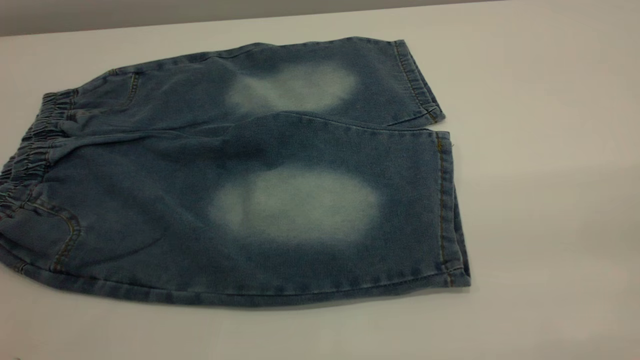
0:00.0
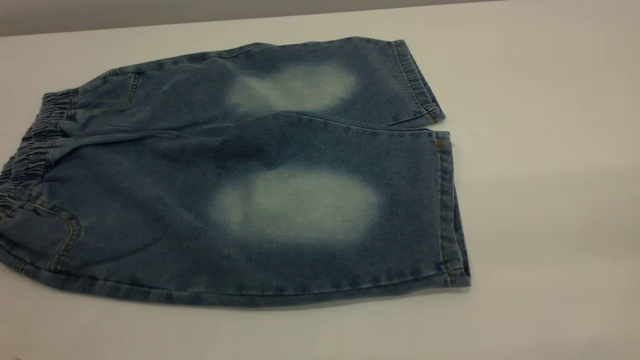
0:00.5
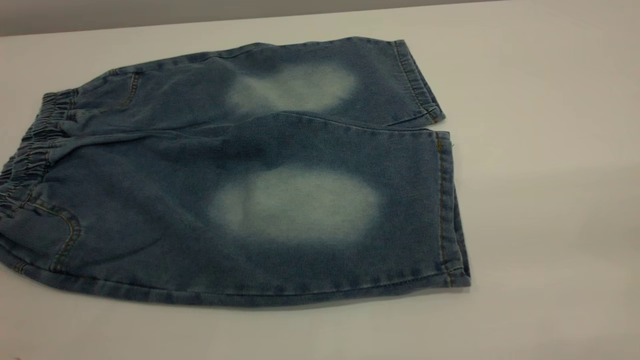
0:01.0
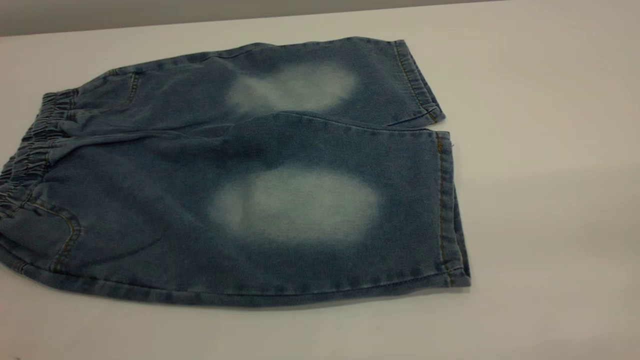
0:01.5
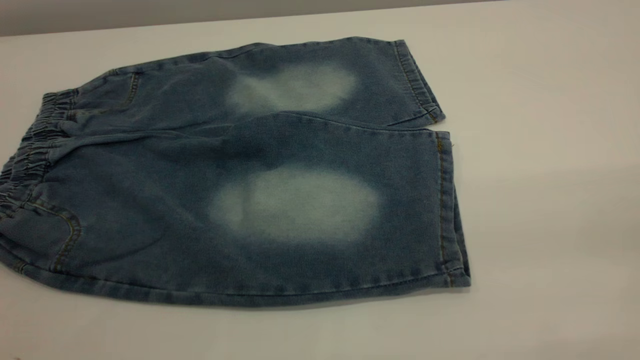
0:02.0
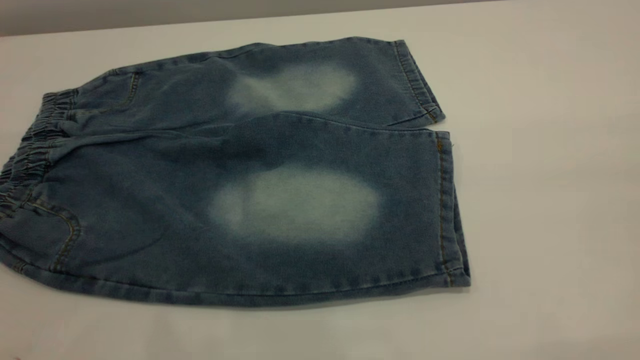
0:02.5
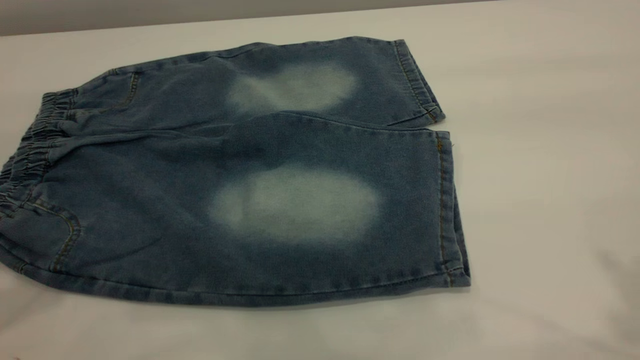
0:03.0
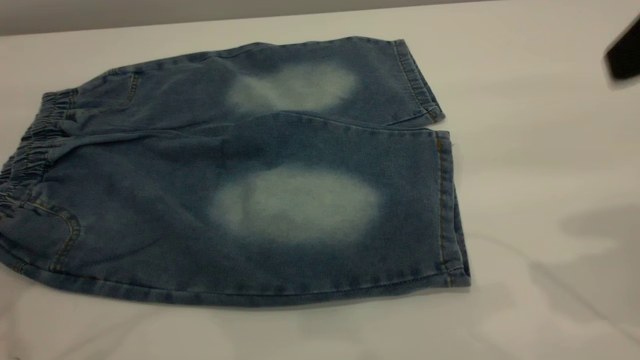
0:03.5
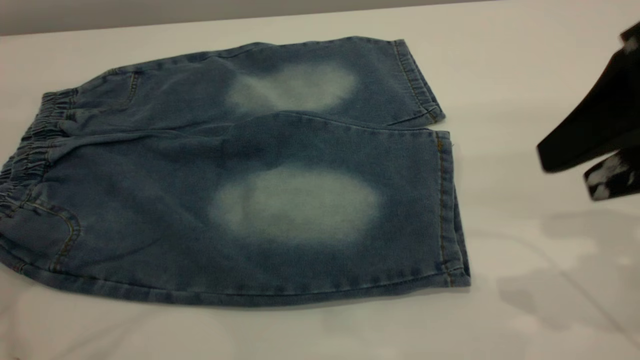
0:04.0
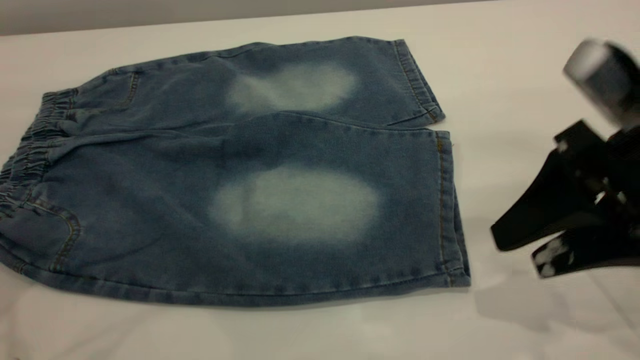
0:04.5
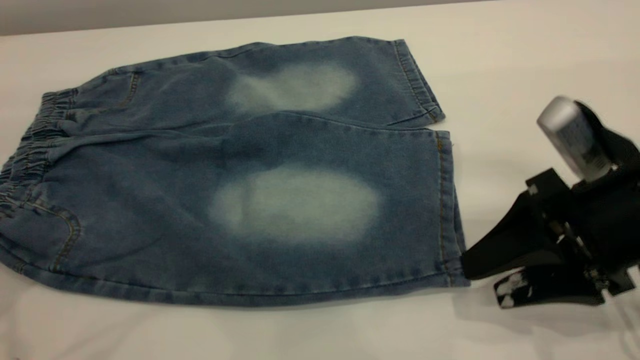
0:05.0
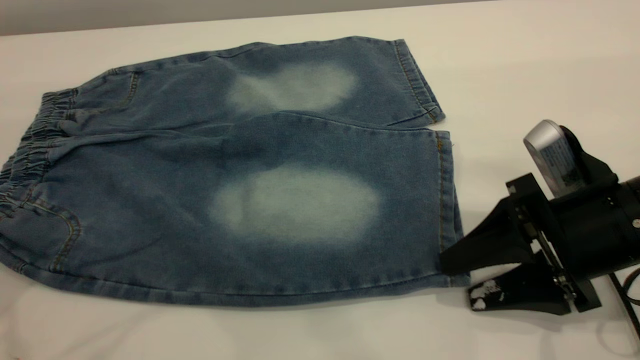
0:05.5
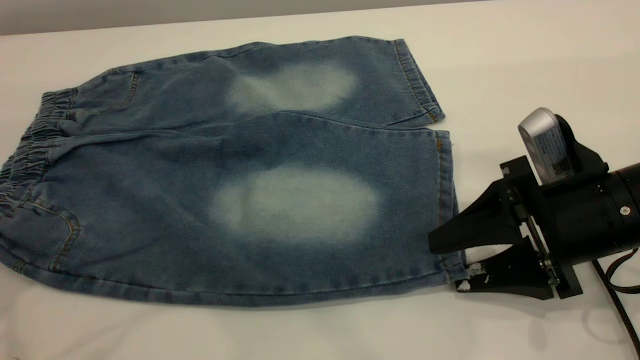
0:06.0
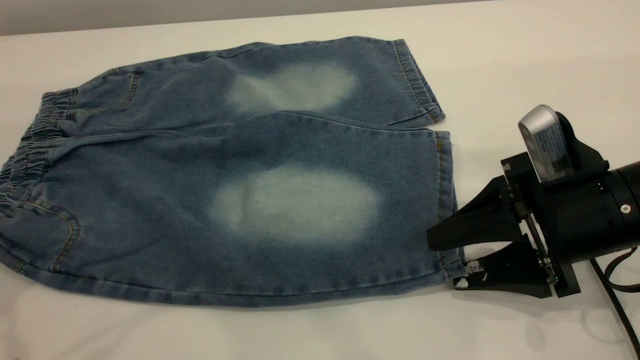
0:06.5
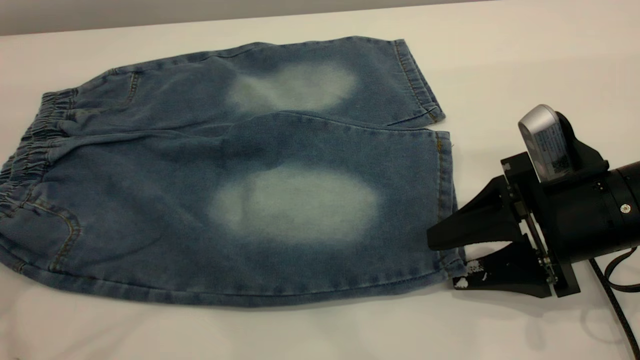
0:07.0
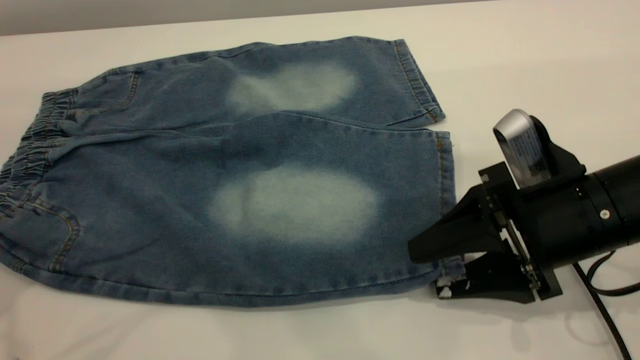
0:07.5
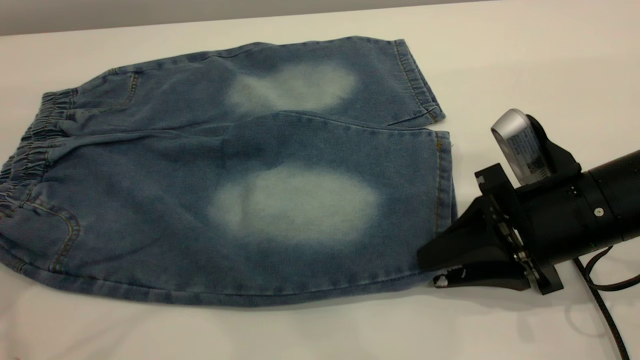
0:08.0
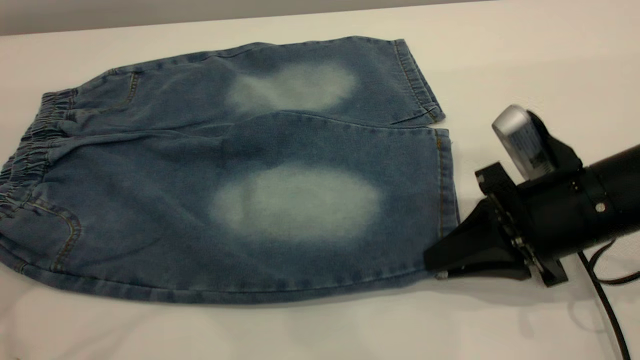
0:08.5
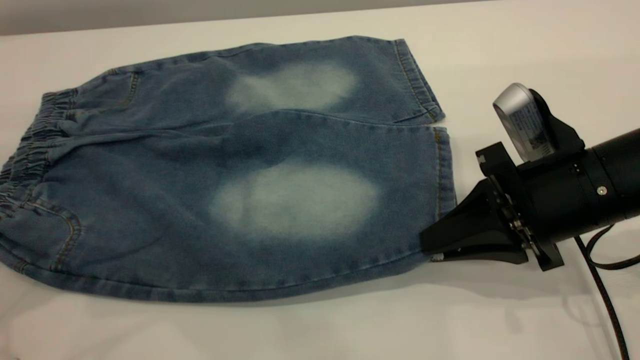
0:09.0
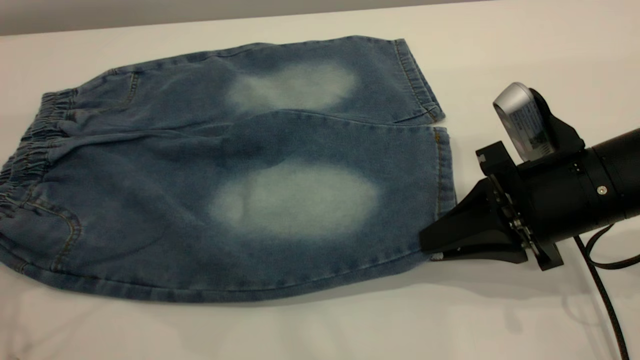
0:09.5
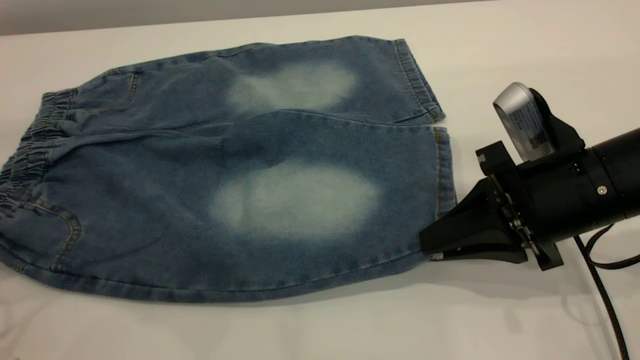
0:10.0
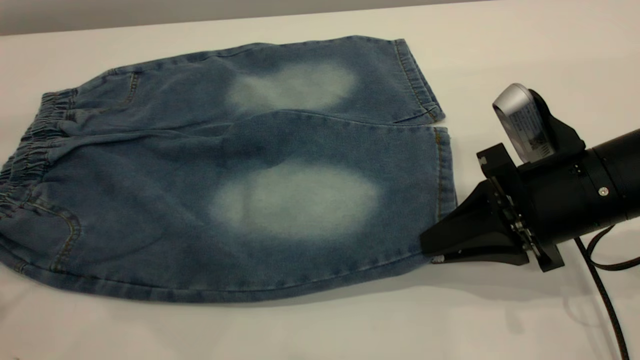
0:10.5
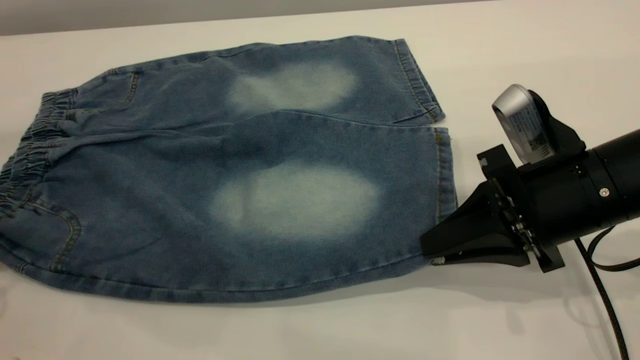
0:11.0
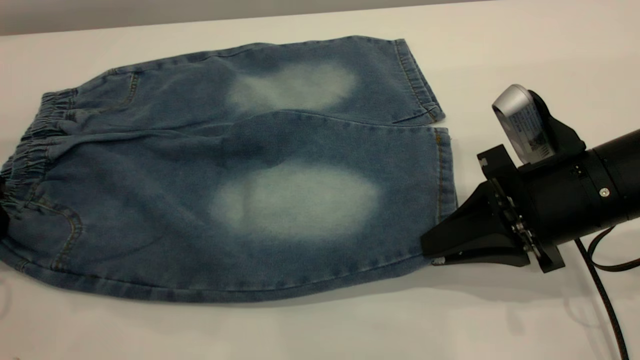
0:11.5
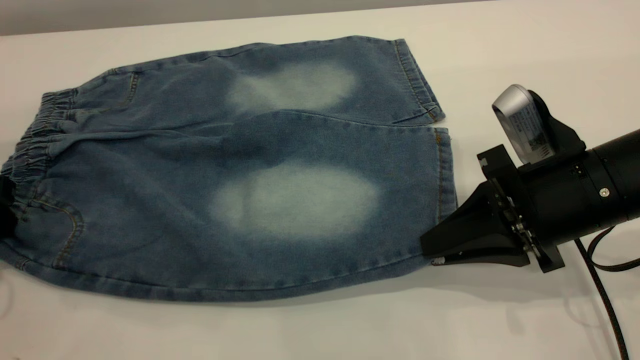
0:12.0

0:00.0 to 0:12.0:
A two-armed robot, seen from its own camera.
0:00.0 to 0:02.0: Both grippers stay about where they are.
0:02.0 to 0:04.0: The right gripper travels forward and downward by some 25 cm.
0:04.0 to 0:06.0: The right gripper goes roughly 15 cm downward.
0:06.0 to 0:08.0: The right gripper closes its fingers.
0:08.0 to 0:10.0: The left gripper heads downward, covering some 10 cm.
0:10.0 to 0:12.0: The left gripper moves downward, roughly 10 cm.

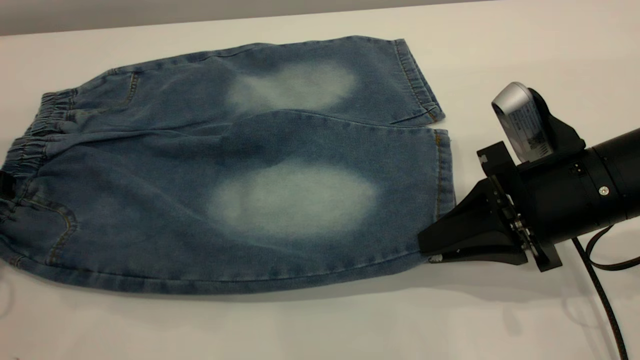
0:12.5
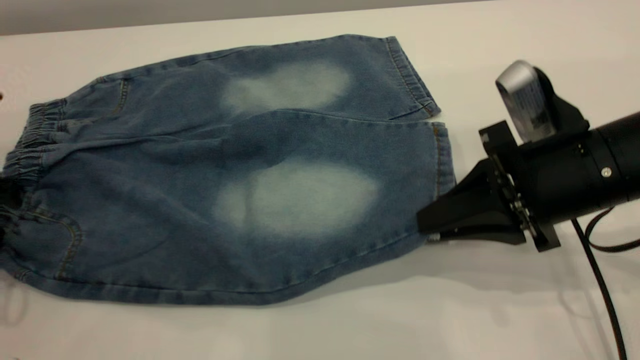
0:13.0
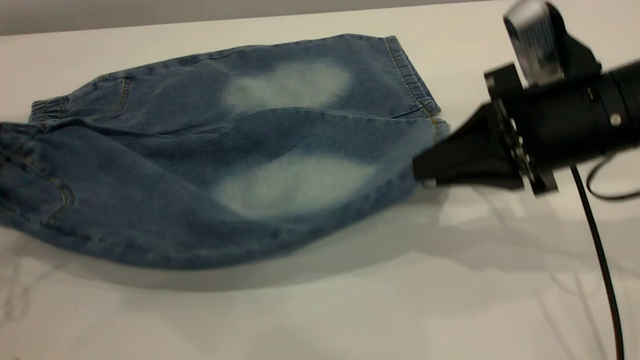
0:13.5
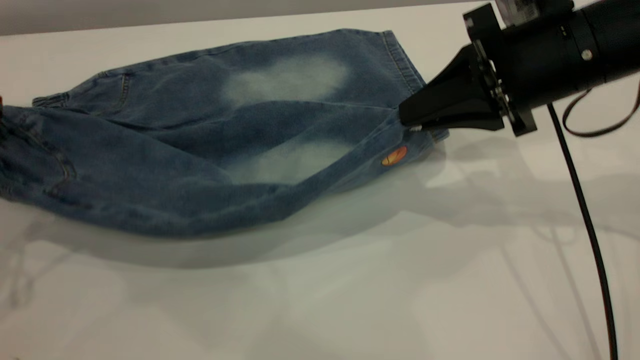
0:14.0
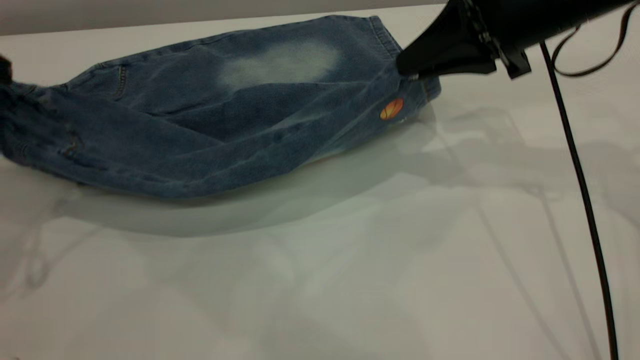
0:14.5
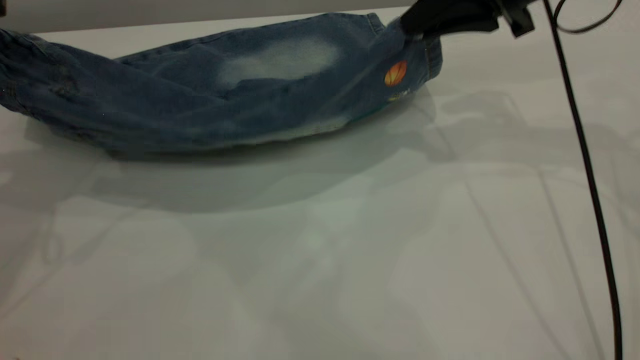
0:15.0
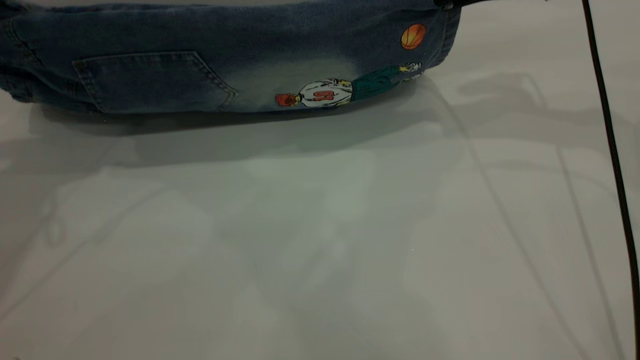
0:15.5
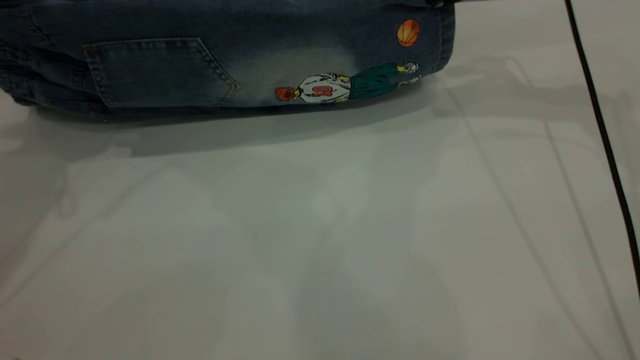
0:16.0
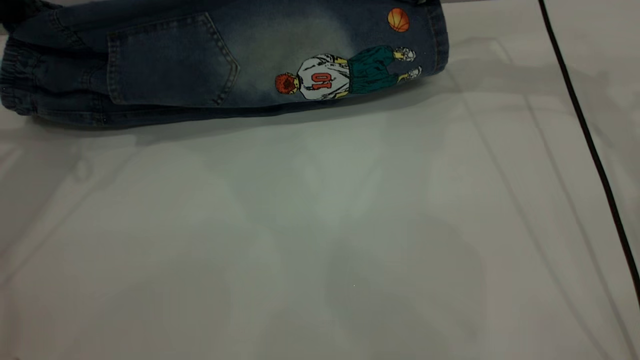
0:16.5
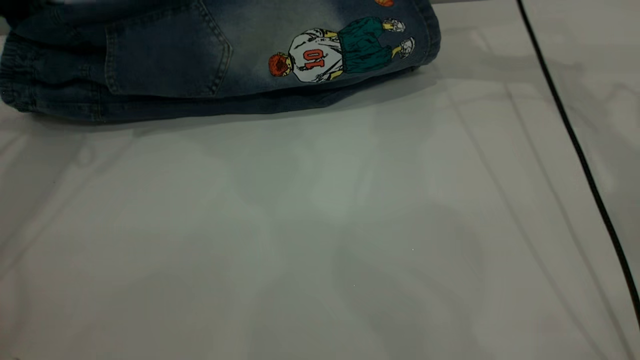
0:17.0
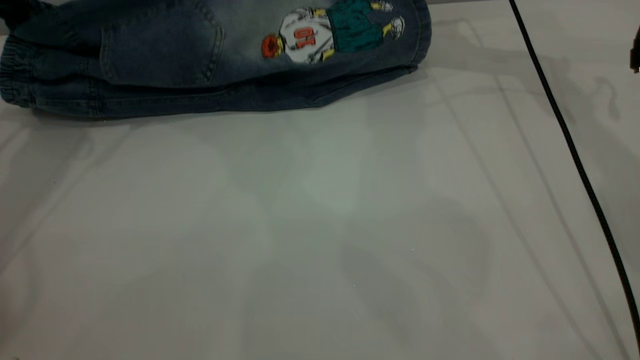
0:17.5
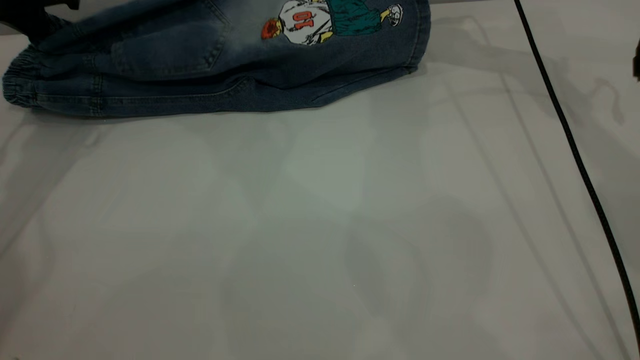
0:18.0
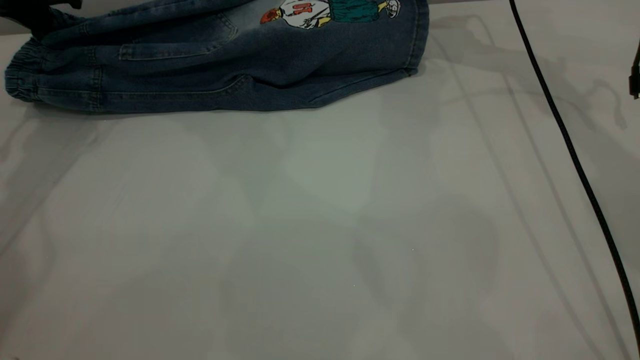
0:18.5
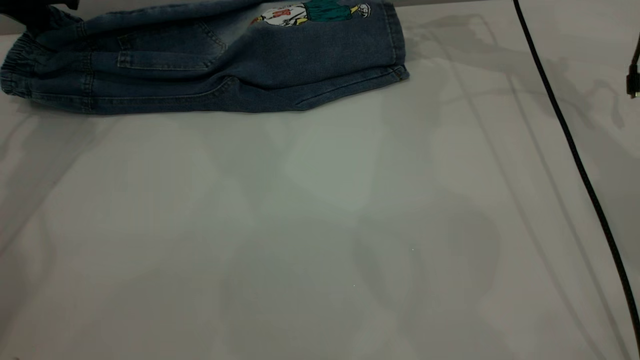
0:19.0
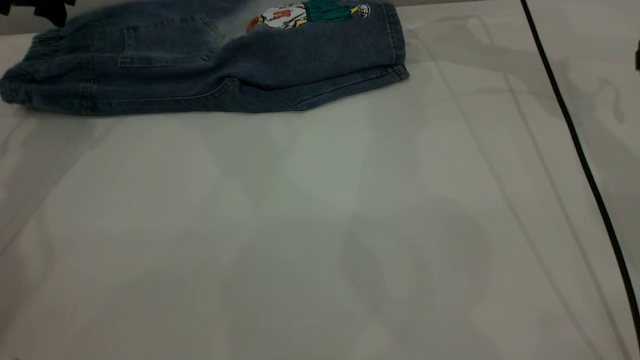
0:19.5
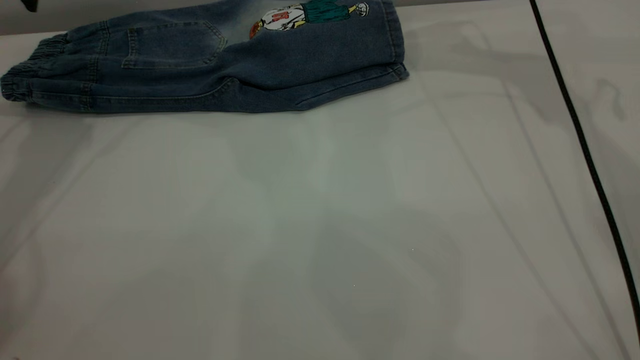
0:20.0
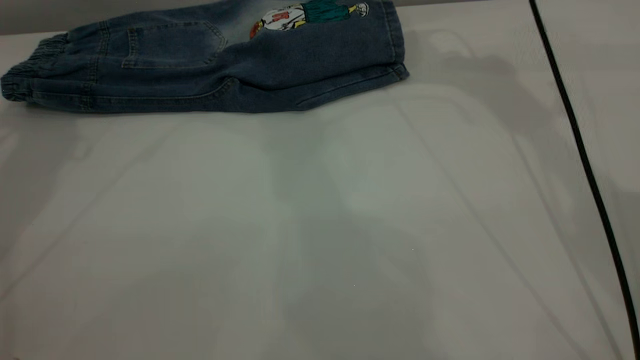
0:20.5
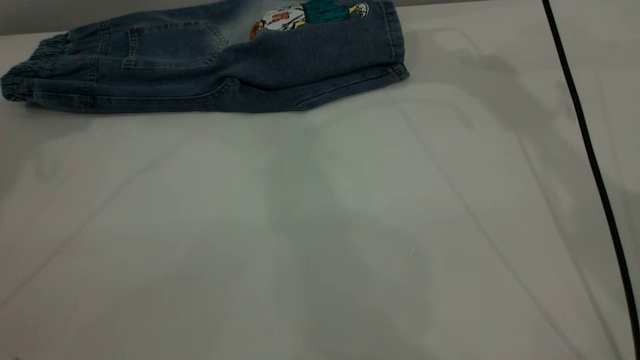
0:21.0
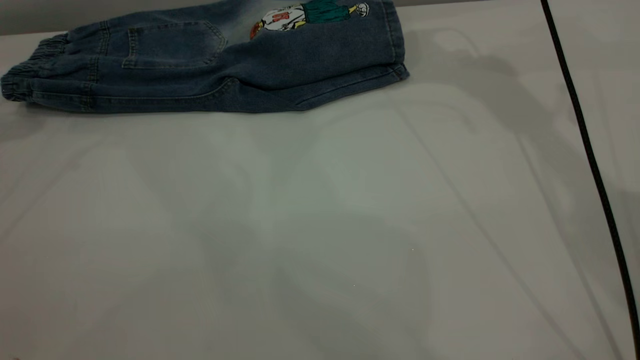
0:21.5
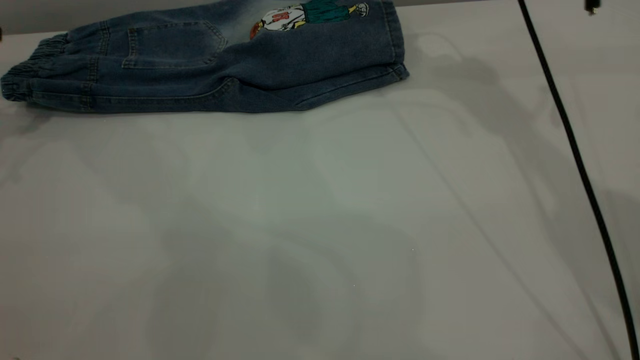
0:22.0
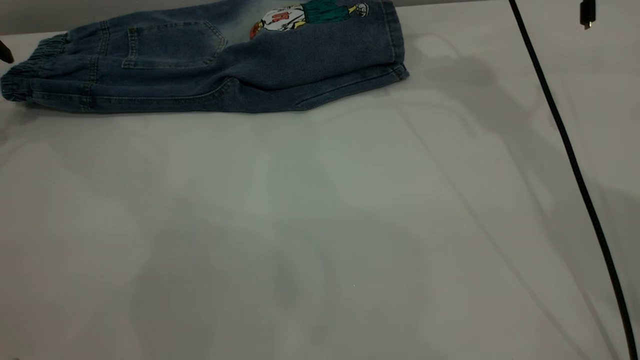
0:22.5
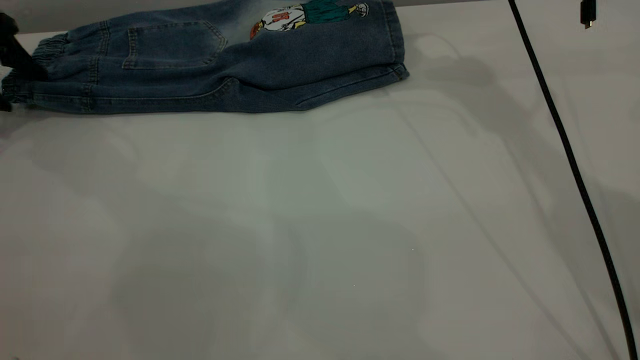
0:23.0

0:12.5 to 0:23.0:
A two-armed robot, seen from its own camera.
Step, 0:12.5 to 0:20.0: Fold the bottom of the pants upward.
0:12.5 to 0:14.5: The right gripper moves forward and upward, about 15 cm; the left gripper moves upward, roughly 10 cm.
0:14.5 to 0:16.5: Both grippers travel together forward, approximately 15 cm.
0:16.5 to 0:19.0: Both grippers move forward, about 5 cm. The right gripper opens.
0:19.0 to 0:21.0: The right gripper moves upward, backward and to the left, roughly 15 cm. Meanwhile the left gripper goes about 20 cm upward and backward, and opens.
0:21.0 to 0:23.0: The left gripper shifts roughly 25 cm downward.
